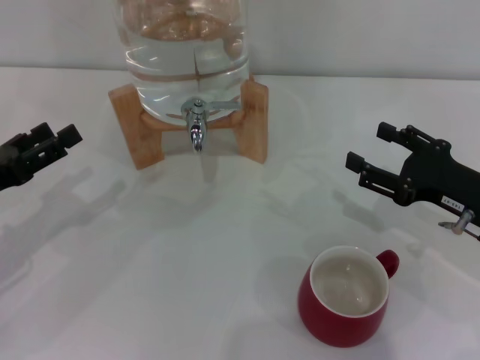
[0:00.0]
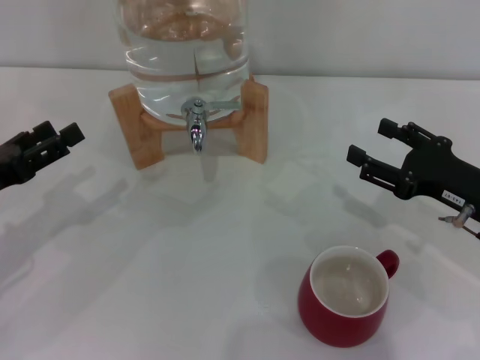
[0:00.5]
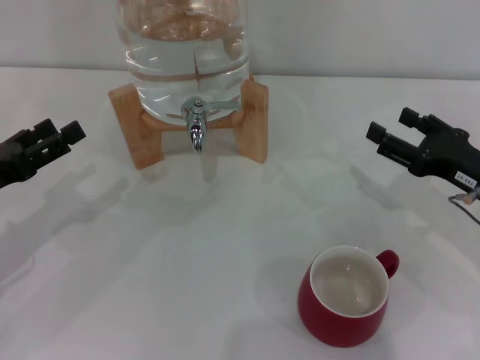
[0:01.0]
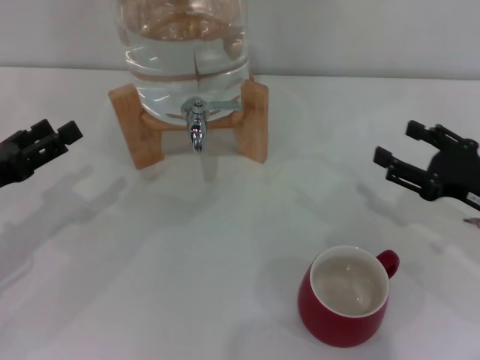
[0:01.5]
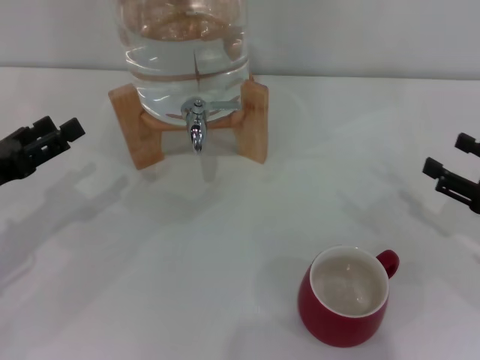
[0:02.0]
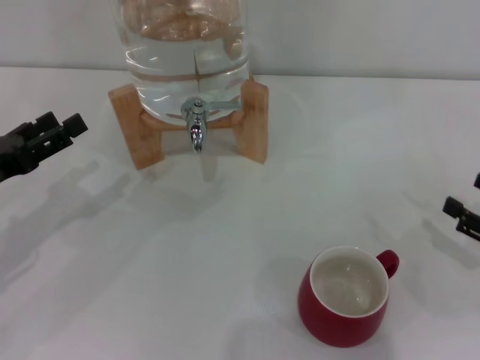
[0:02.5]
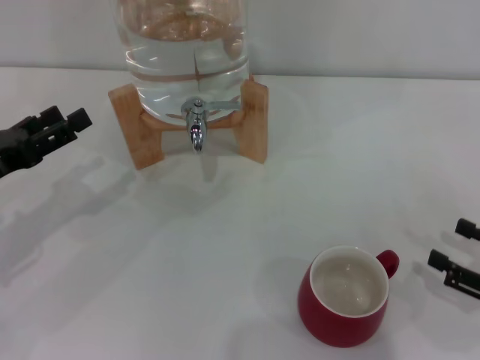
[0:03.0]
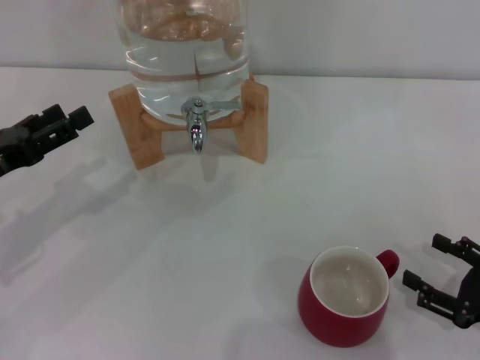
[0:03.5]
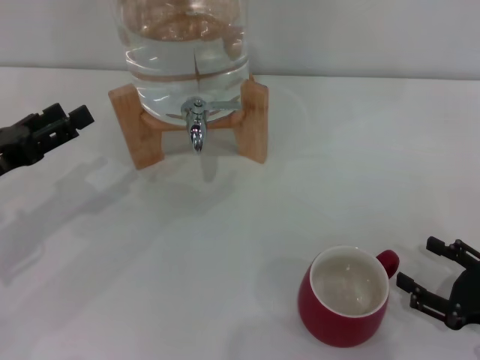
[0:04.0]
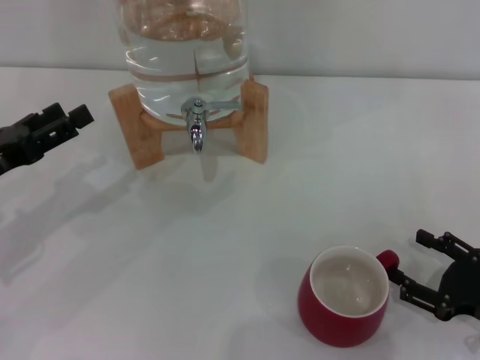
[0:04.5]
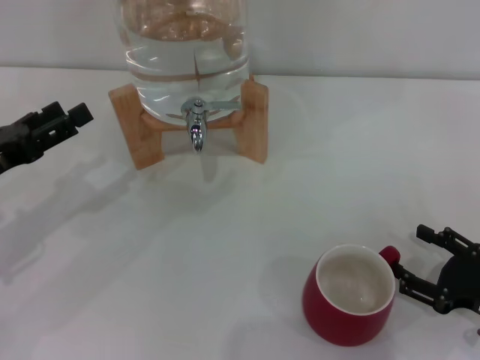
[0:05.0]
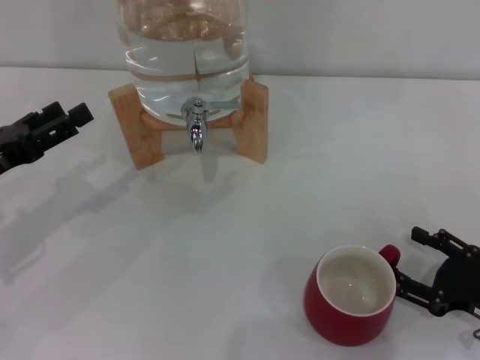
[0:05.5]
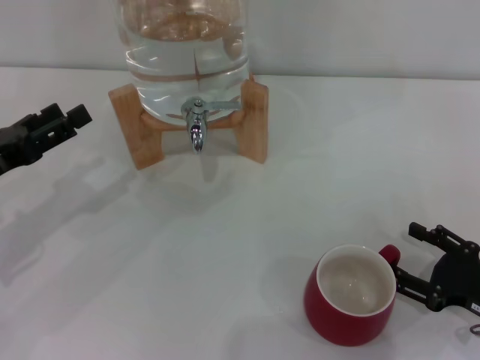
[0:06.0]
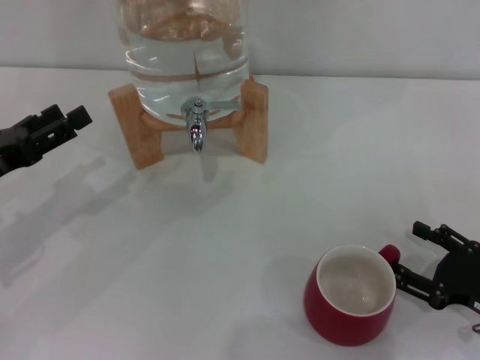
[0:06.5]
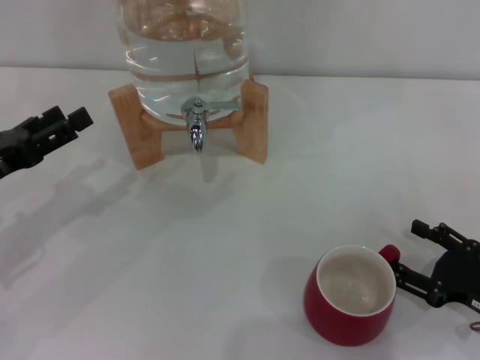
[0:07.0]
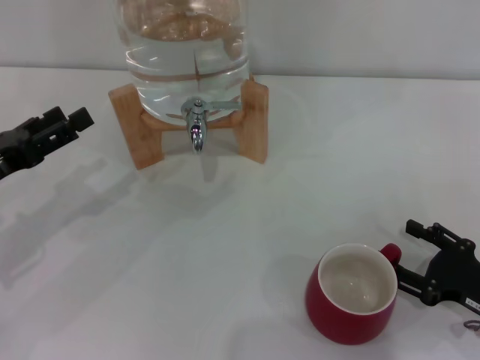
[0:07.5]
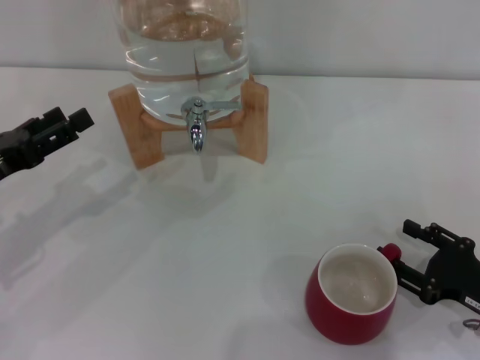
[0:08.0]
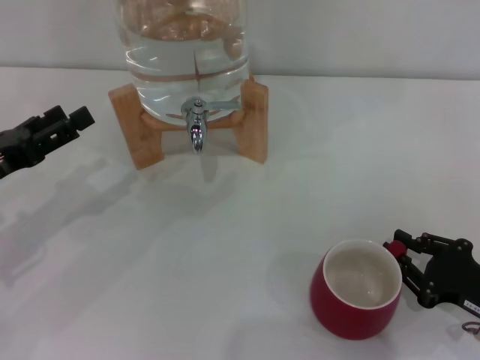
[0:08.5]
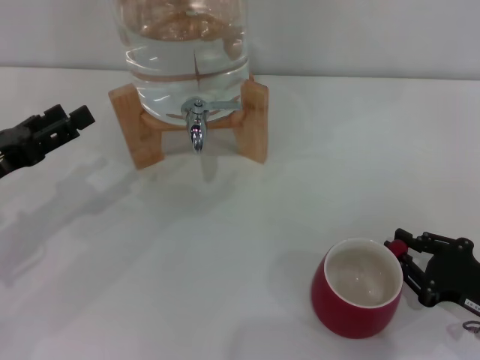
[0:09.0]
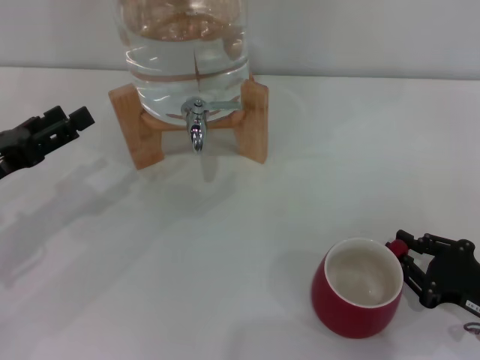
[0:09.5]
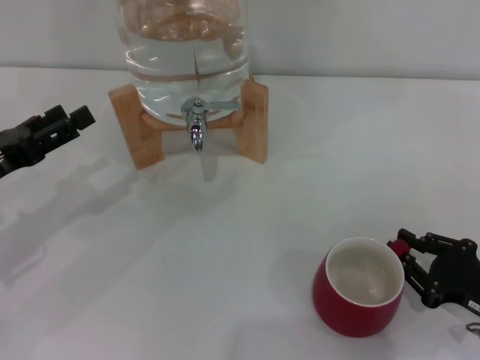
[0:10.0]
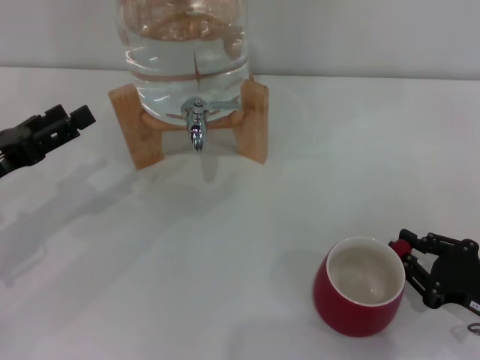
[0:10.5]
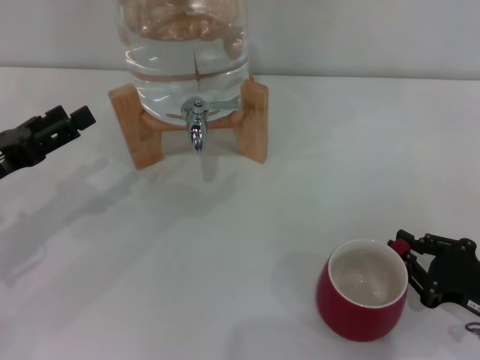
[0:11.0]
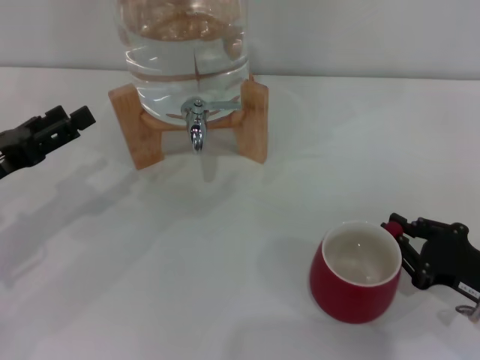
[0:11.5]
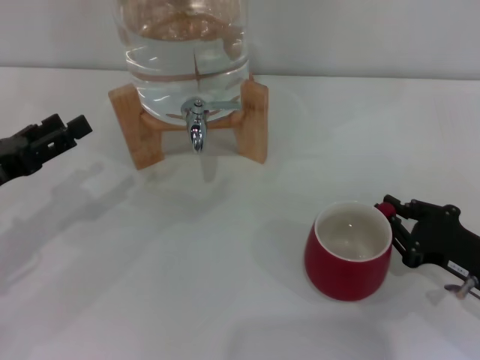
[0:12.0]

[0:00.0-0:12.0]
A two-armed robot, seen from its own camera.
Task of the whole recording: the right gripper pick up the red cup and place it horizontally under the faucet, the left gripper turn on the faucet to fill the cup, and then turn off the faucet.
0:00.0 to 0:02.0: The right gripper travels to the right by some 5 cm.
0:02.0 to 0:04.0: The right gripper travels backward and downward by approximately 10 cm.
0:04.0 to 0:06.0: The grippers make only small movements.
0:06.0 to 0:08.0: Neither gripper changes place.
0:08.0 to 0:10.0: The right gripper closes its fingers.
0:10.0 to 0:12.0: The grippers stay close to where they were, moving slightly.

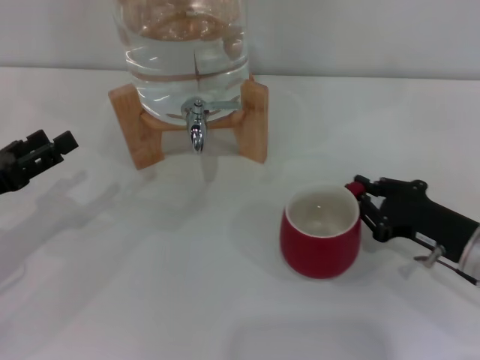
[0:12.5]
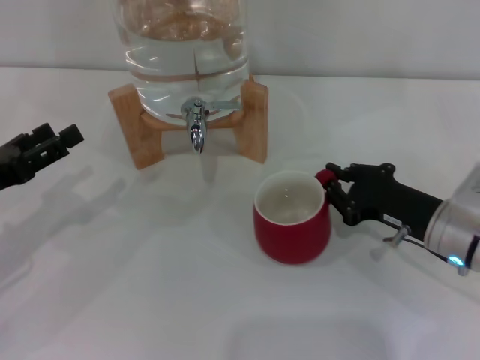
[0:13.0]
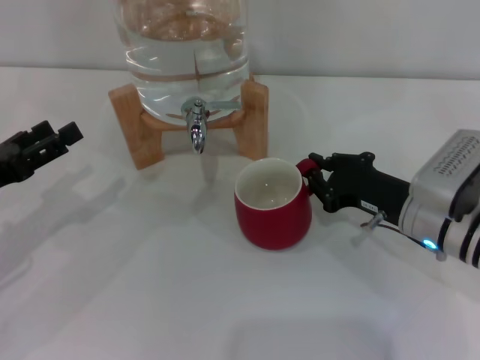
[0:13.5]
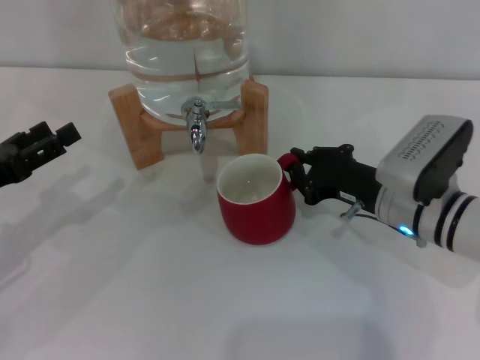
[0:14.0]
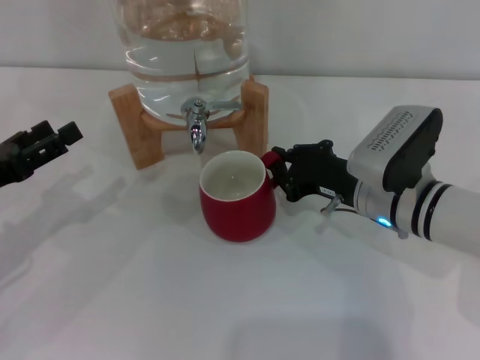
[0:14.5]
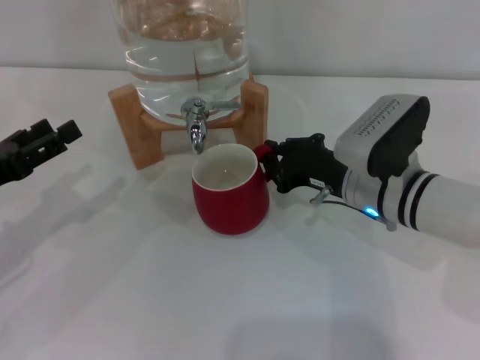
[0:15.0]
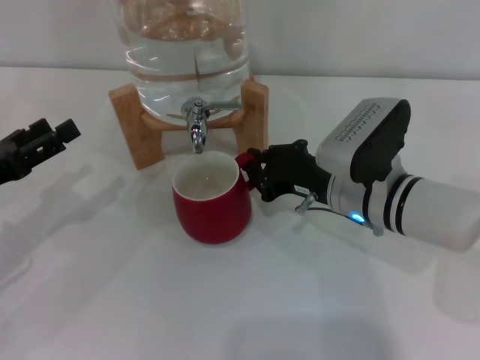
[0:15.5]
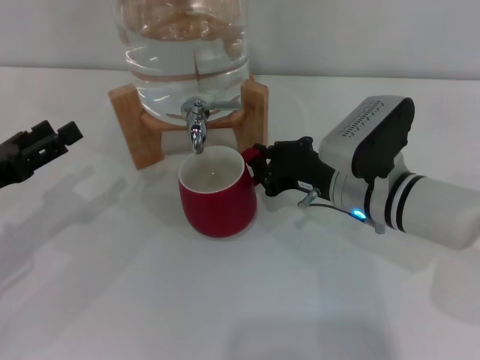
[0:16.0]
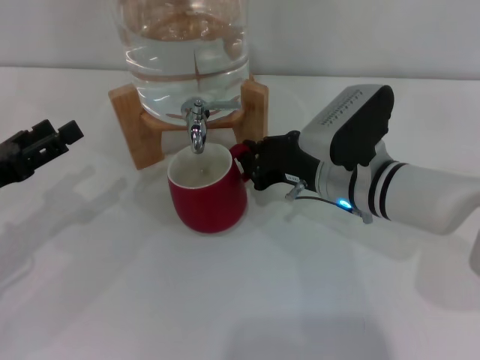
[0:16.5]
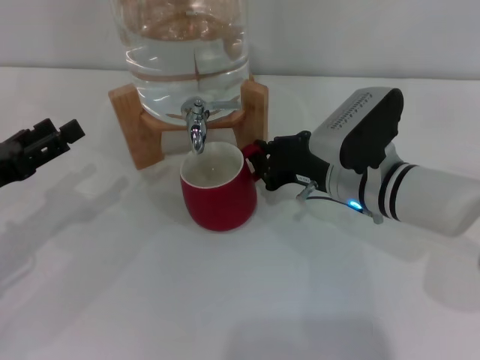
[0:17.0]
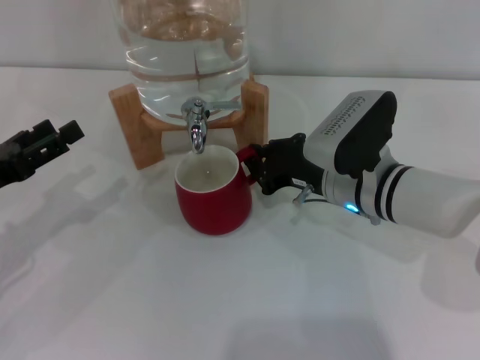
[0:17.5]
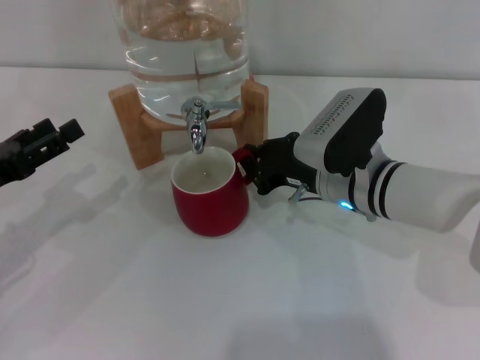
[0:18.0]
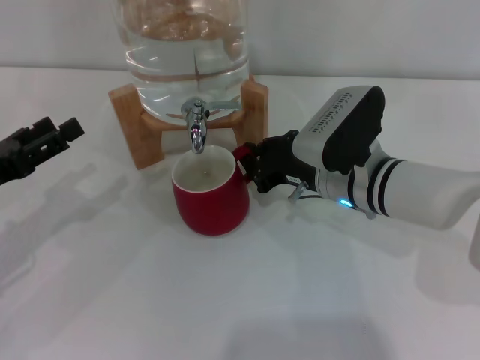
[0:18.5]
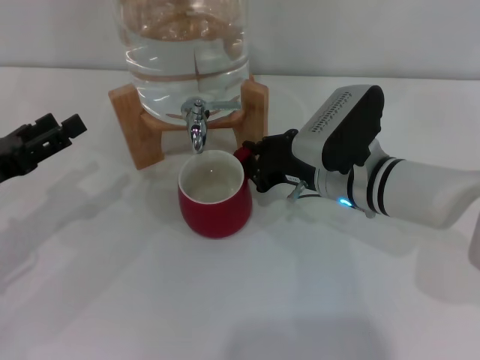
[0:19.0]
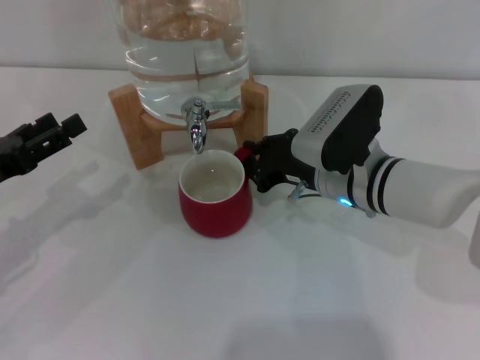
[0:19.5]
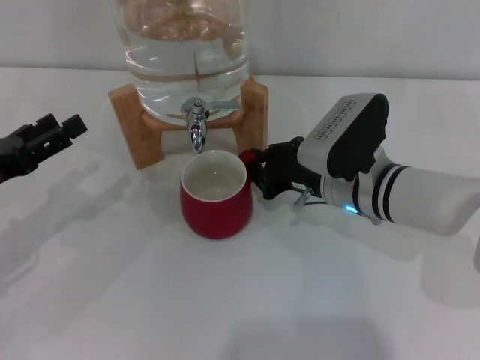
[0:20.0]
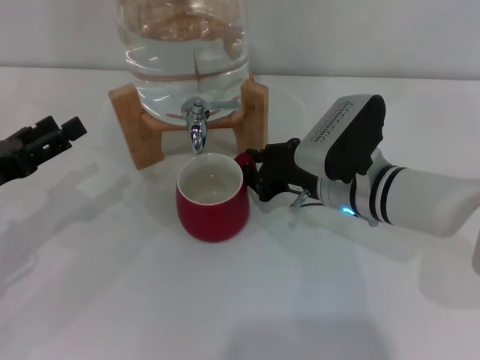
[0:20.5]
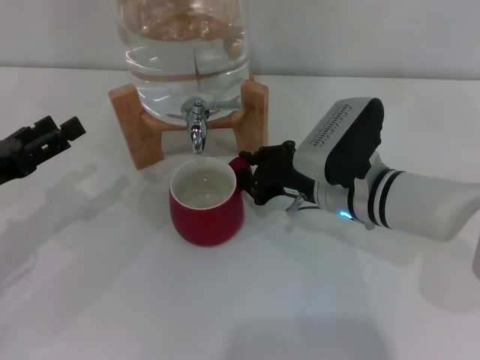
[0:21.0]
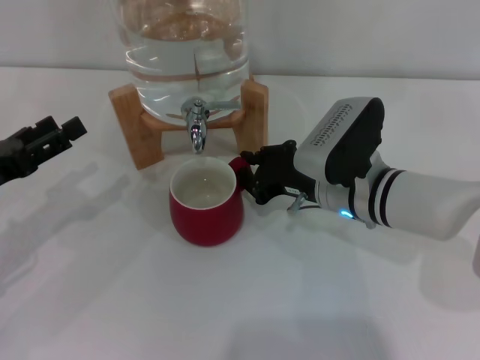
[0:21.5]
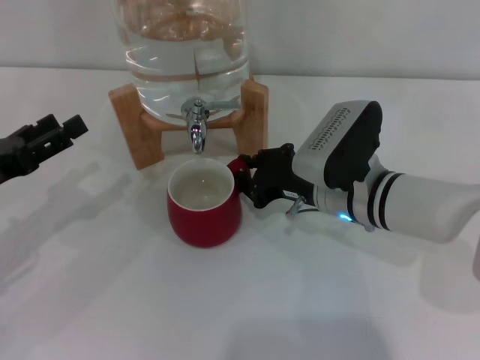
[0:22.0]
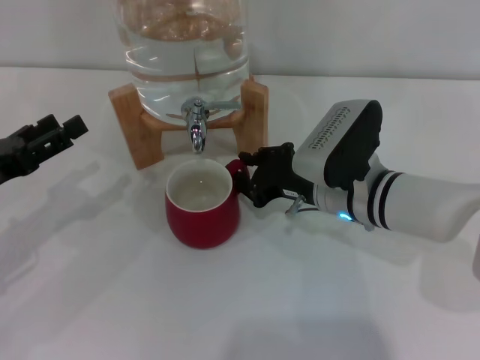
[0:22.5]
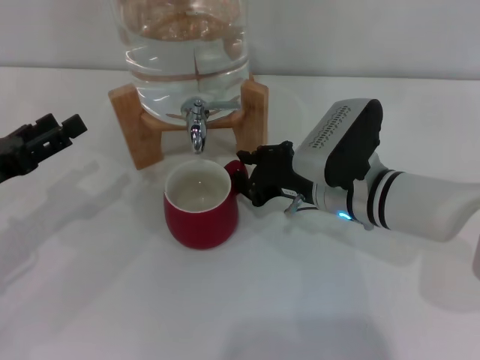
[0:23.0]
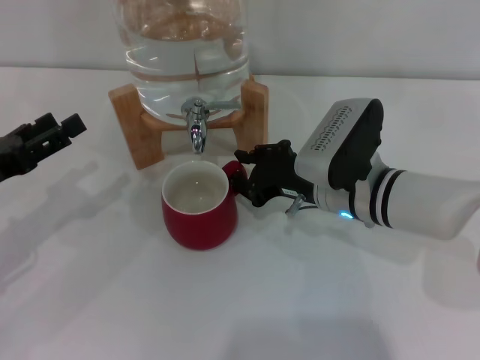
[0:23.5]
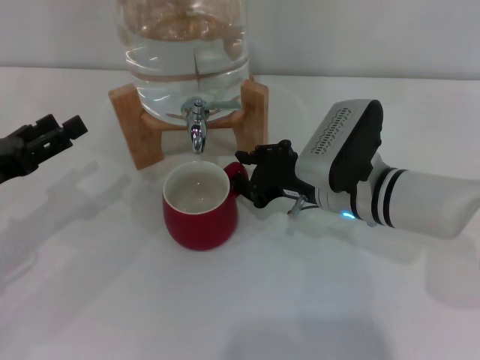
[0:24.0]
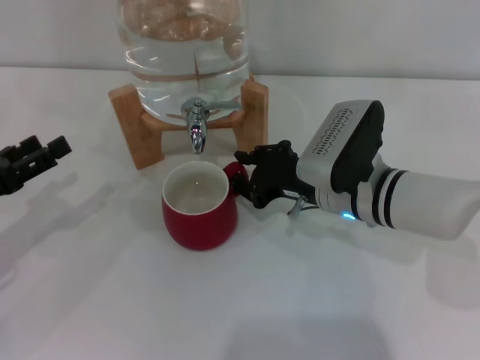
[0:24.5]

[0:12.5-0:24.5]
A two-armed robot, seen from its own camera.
Task of the whole recording: the right gripper pick up the red cup and place it horizontally under the faucet, the left gripper turn on the faucet to fill the cup, and then turn off the faucet.
0:12.5 to 0:14.5: The right gripper travels to the left and forward by roughly 10 cm.
0:14.5 to 0:18.5: The grippers stay close to where they were, moving slightly.
0:18.5 to 0:22.5: Neither gripper changes place.
0:22.5 to 0:24.5: The grippers make only small movements.

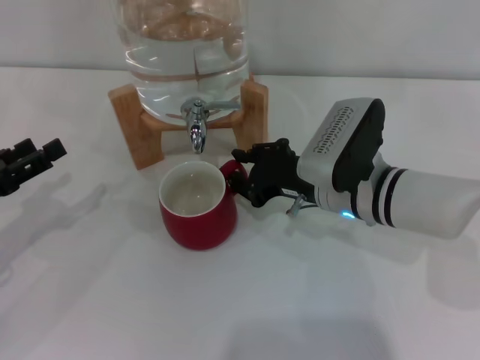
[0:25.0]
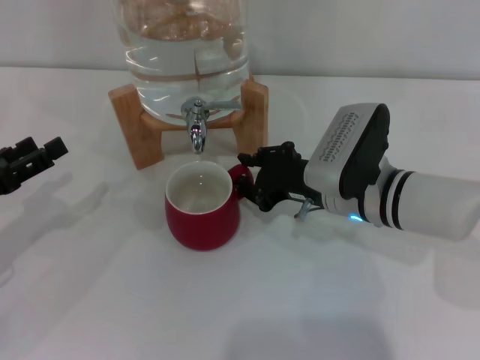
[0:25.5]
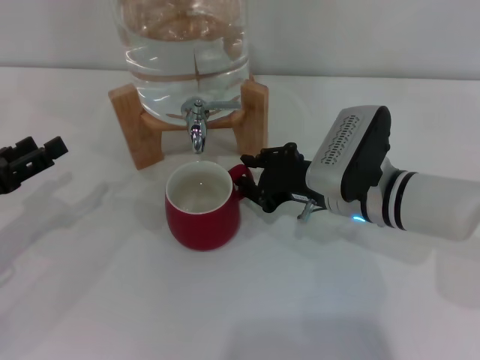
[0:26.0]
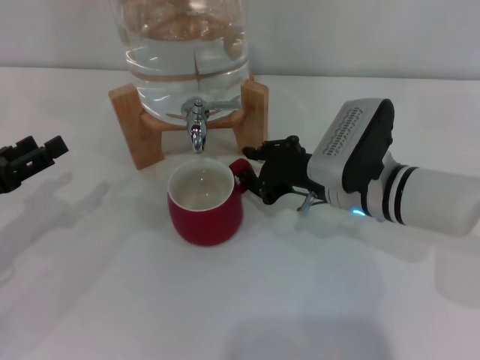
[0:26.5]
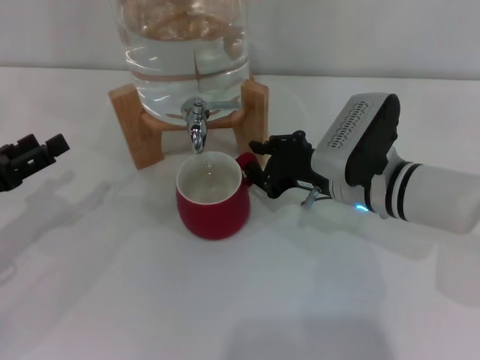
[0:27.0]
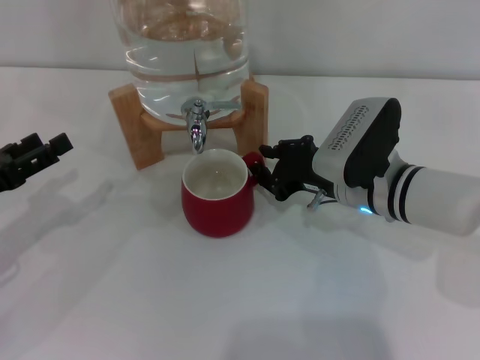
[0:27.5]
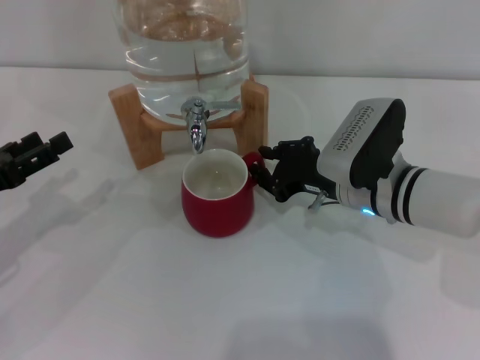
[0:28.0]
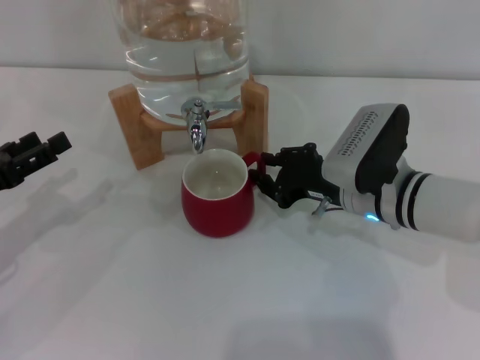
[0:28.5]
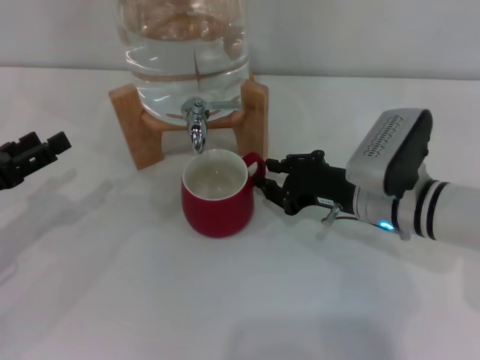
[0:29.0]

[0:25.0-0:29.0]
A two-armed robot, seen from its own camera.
Task of the whole recording: the right gripper pick up the red cup and place it horizontally under the faucet, the left gripper turn on the faucet to fill the cup, and then turn off the faucet.
0:25.0 to 0:29.0: There are only small adjustments of the grippers.
